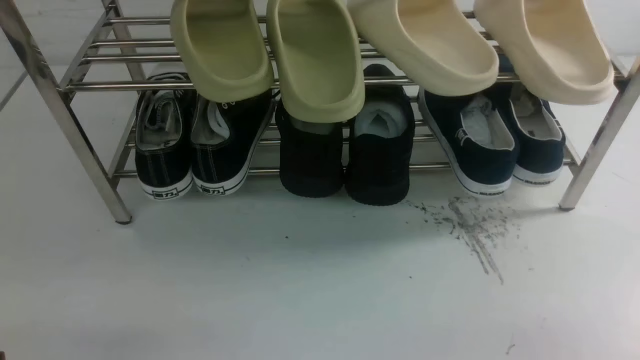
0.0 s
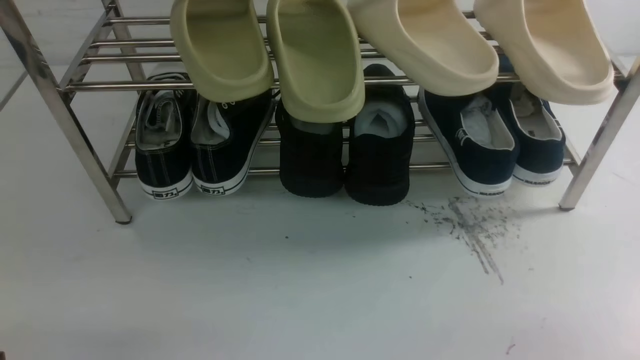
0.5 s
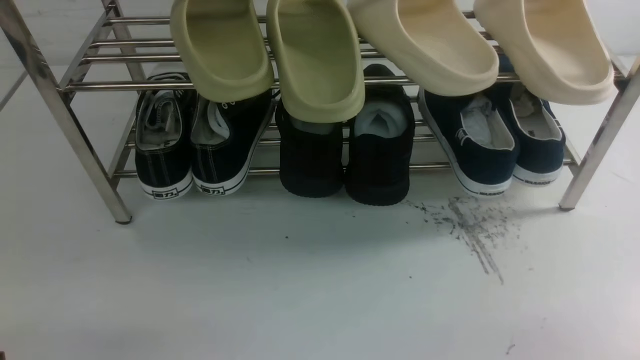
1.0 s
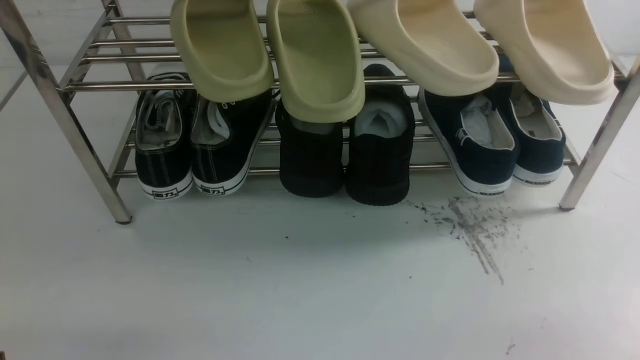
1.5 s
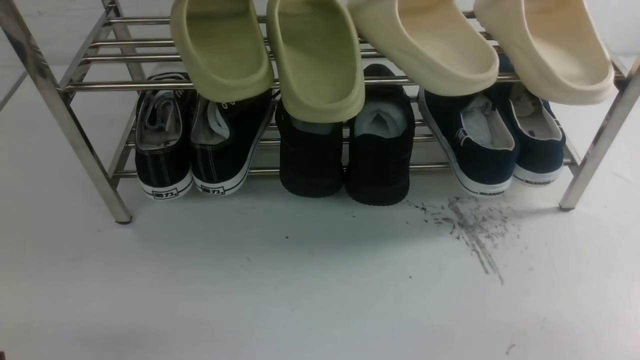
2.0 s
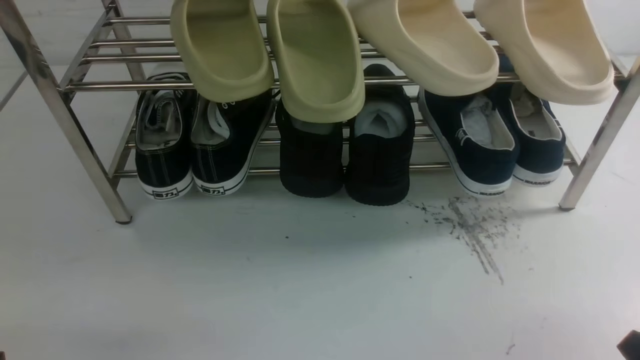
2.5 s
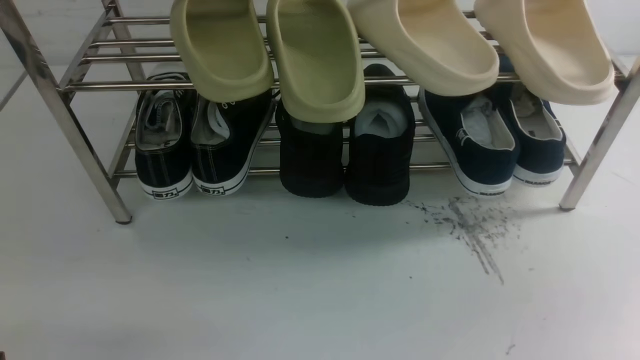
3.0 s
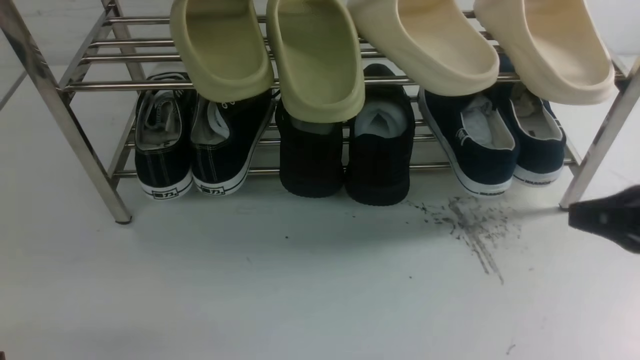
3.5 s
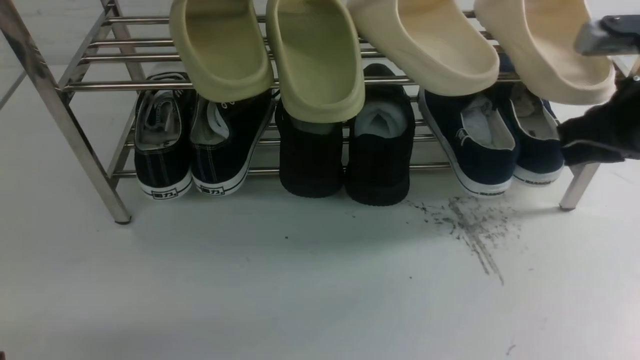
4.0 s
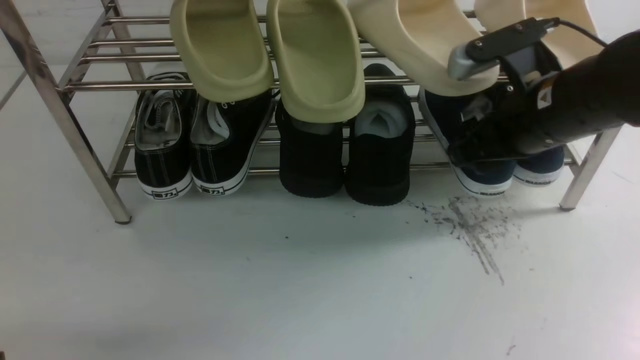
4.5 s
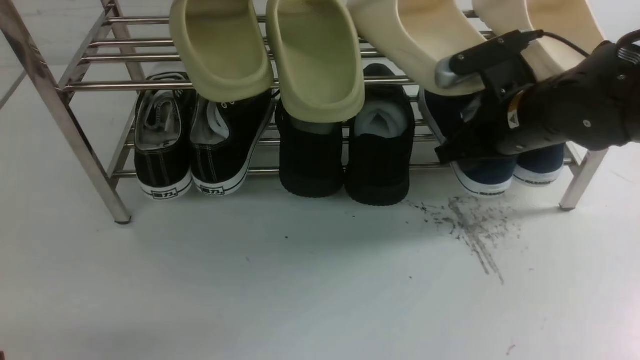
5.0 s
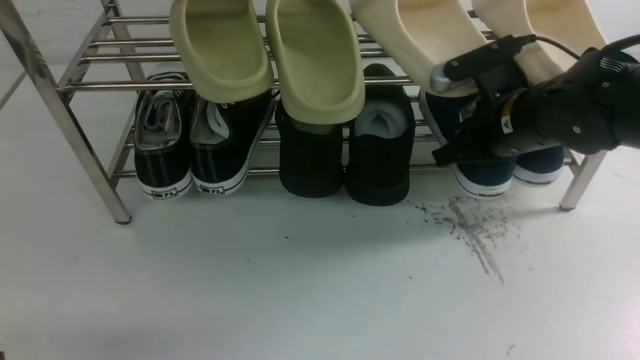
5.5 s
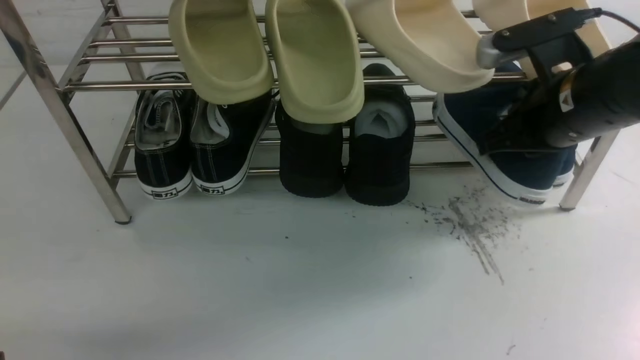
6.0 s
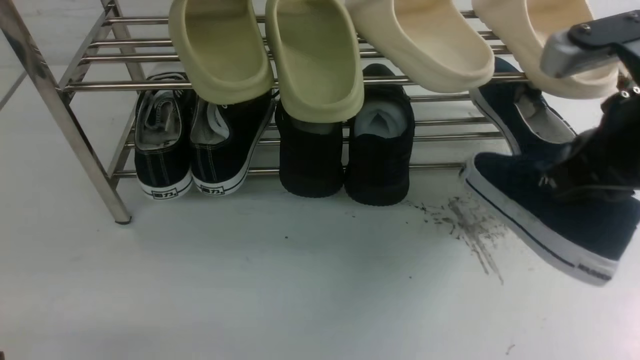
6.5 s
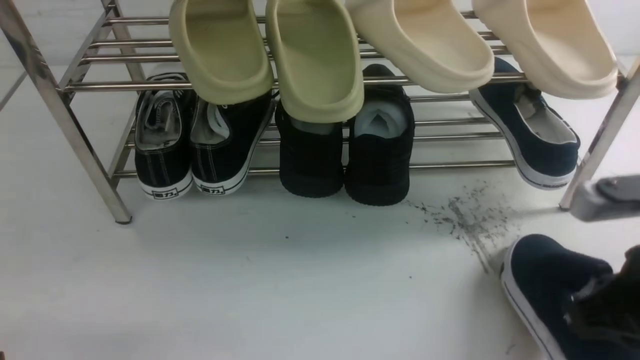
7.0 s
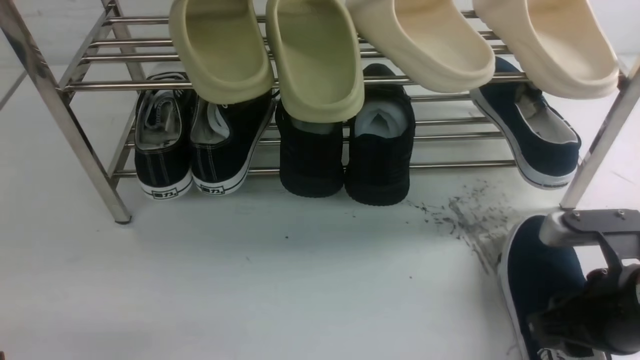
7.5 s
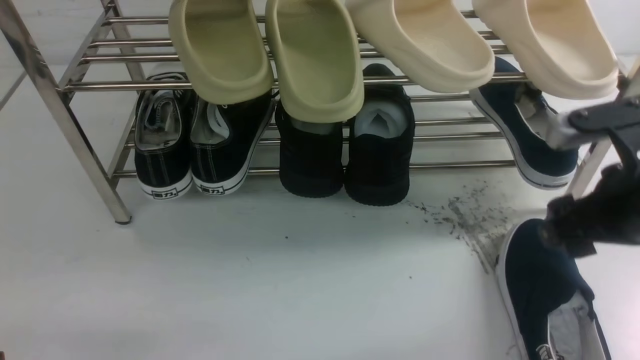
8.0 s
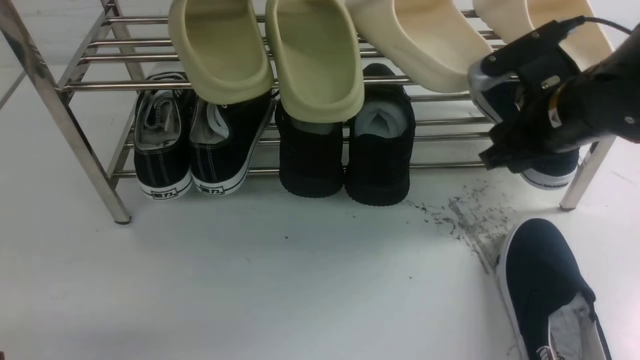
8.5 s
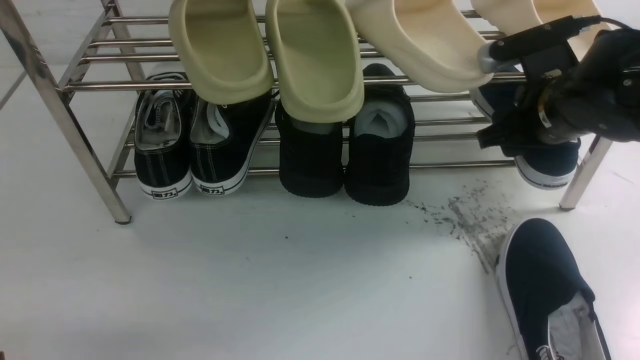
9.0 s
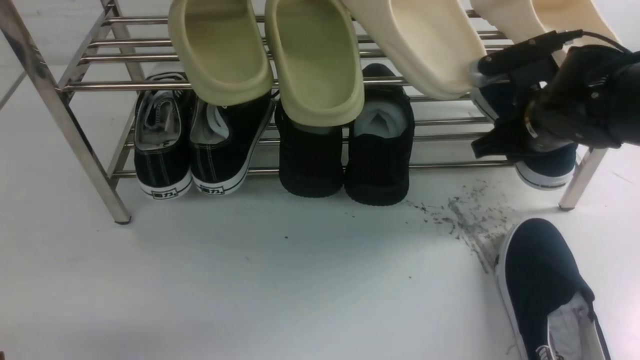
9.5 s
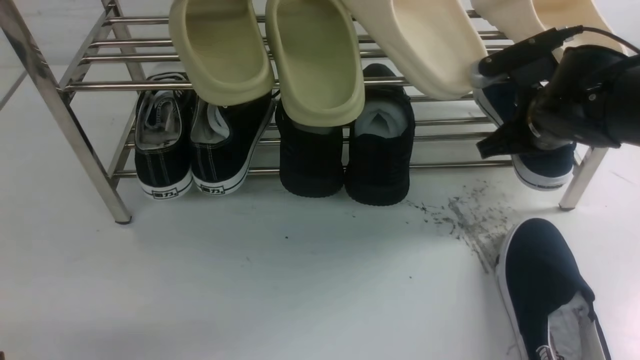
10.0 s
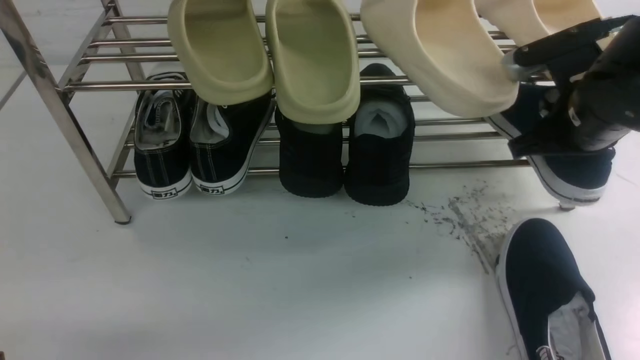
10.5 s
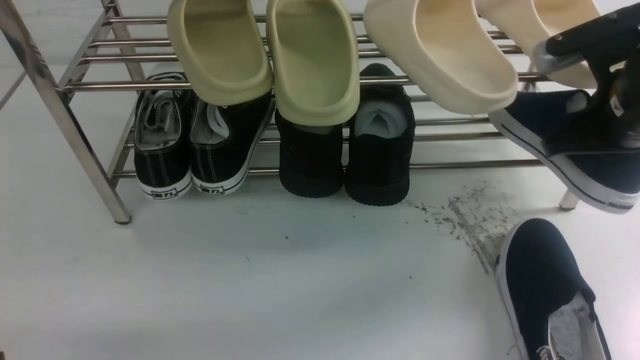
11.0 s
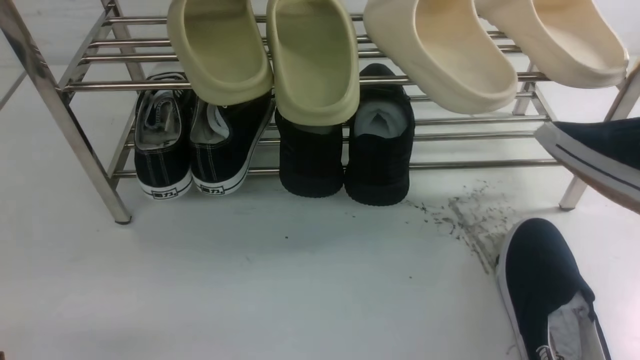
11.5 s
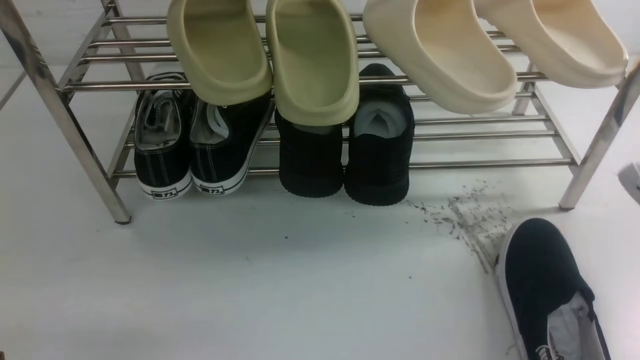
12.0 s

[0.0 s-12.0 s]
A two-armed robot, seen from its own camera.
Step, 0.0 to 6.0 s: use the right arm to clamp a shoe on the right side of the shoe rack.
Step, 6.5 to 8.0 s: use the right arm to take out the clamped shoe from the shoe rack and put it down.
Step, 8.5 to 11.0 s: use the right arm to clamp a shoe on the right side of the shoe rack.
0.0 to 2.0 s: Both grippers stay about where they are.
2.0 to 4.0 s: The right gripper moves forward and upward, some 30 cm.
4.0 to 6.0 s: The right gripper moves to the left, roughly 5 cm, and opens, then closes once more.
6.0 to 8.0 s: The right gripper moves up and down over some 15 cm, changing direction 2 times, and opens.
8.0 to 10.0 s: The right gripper goes approximately 10 cm forward, and closes its fingers.
10.0 to 12.0 s: The right gripper is displaced backward and upward by about 25 cm.

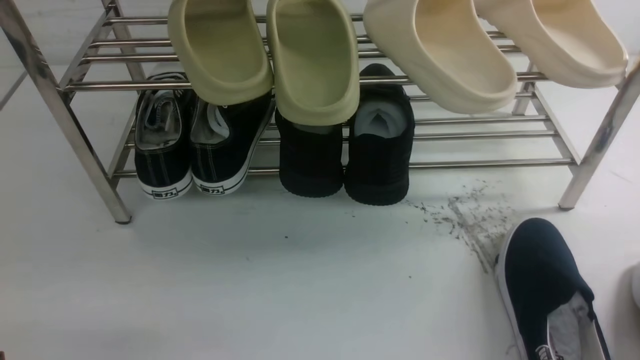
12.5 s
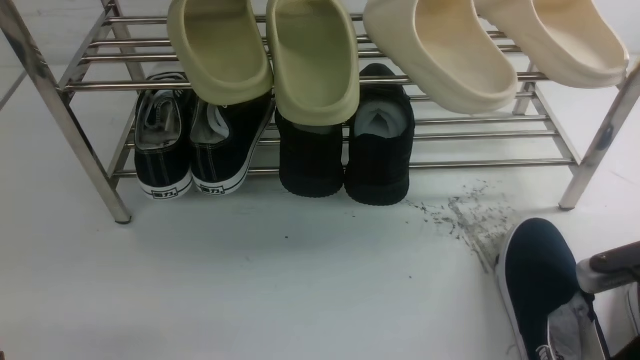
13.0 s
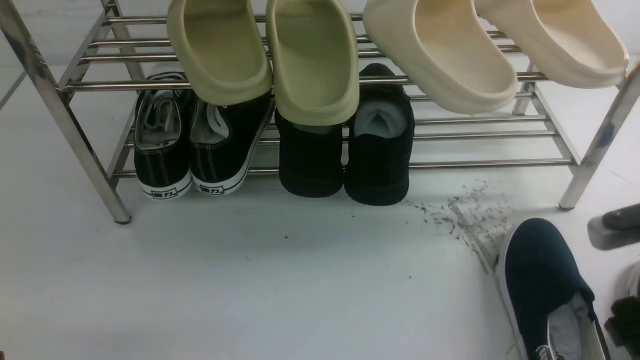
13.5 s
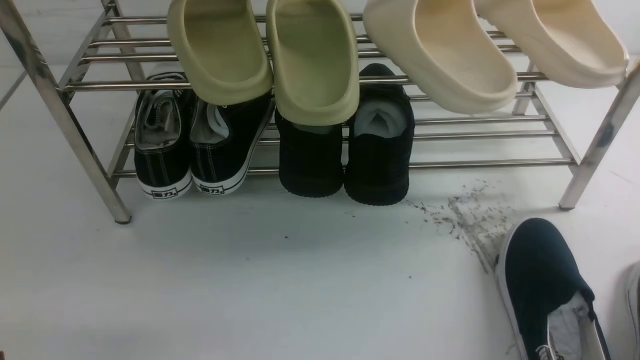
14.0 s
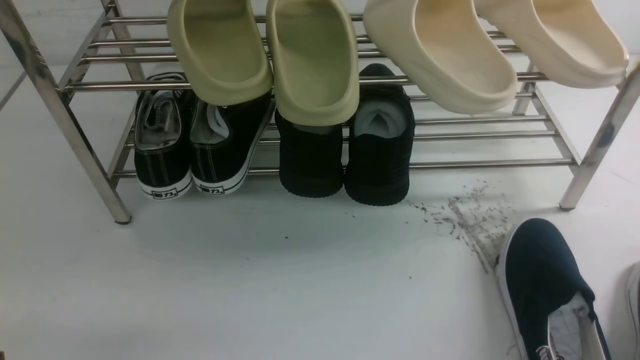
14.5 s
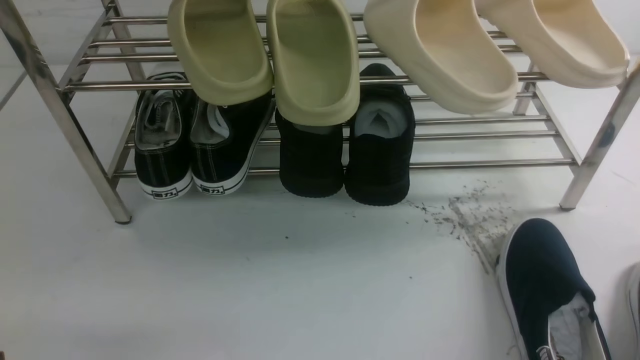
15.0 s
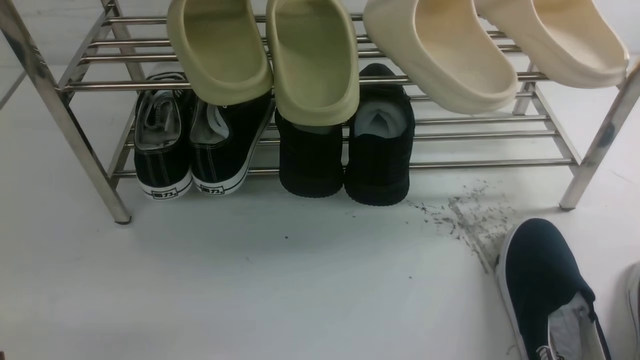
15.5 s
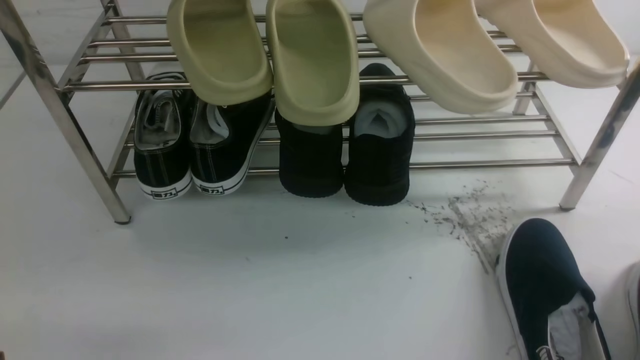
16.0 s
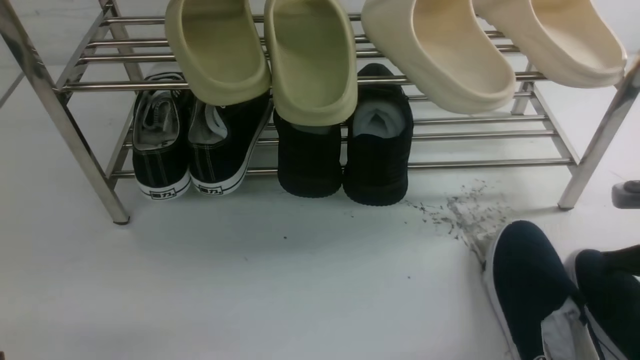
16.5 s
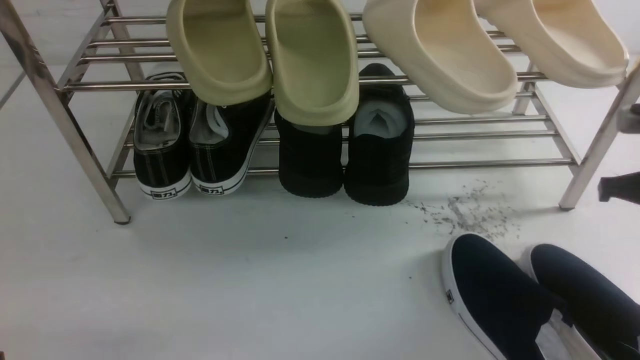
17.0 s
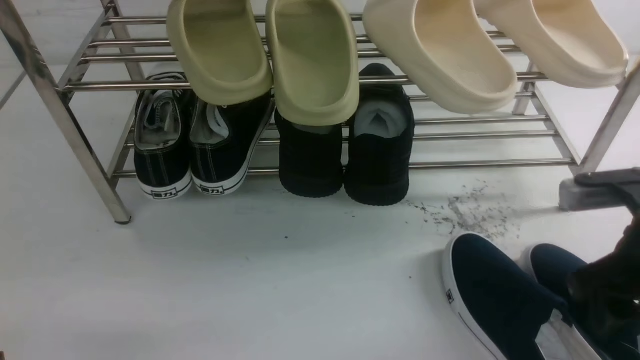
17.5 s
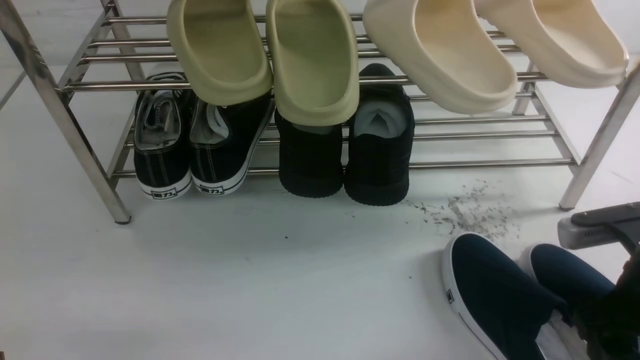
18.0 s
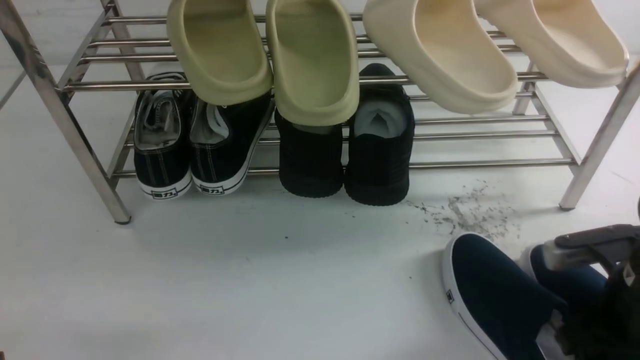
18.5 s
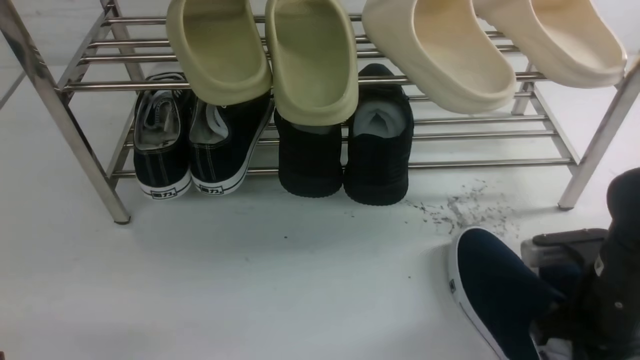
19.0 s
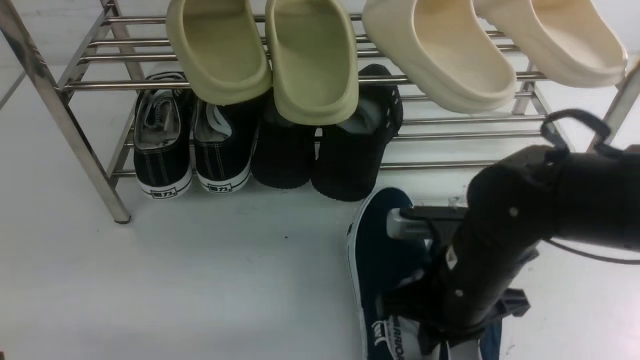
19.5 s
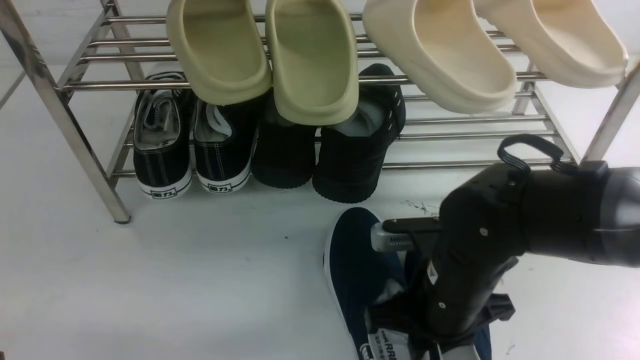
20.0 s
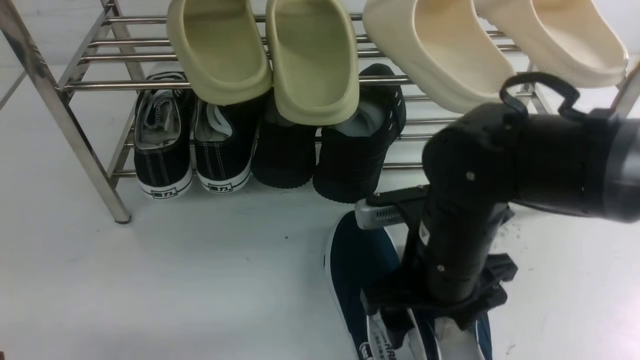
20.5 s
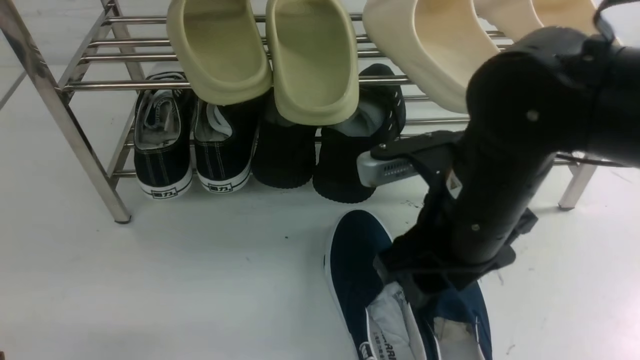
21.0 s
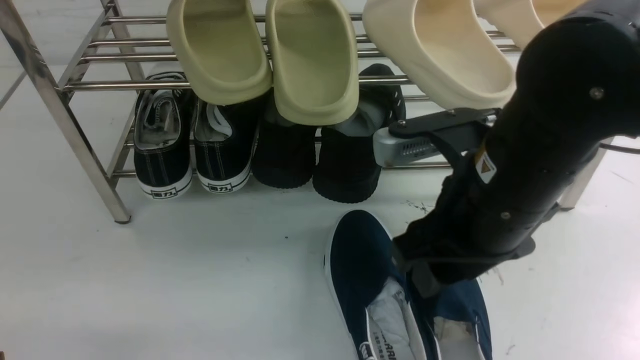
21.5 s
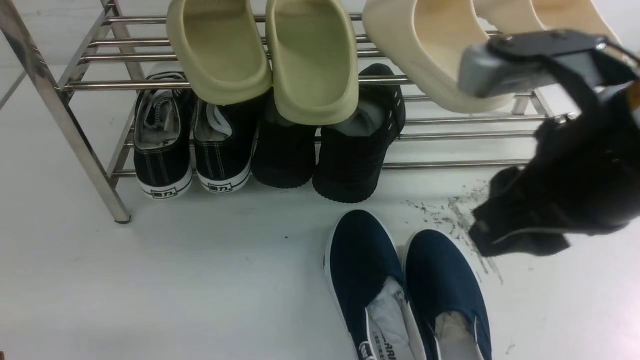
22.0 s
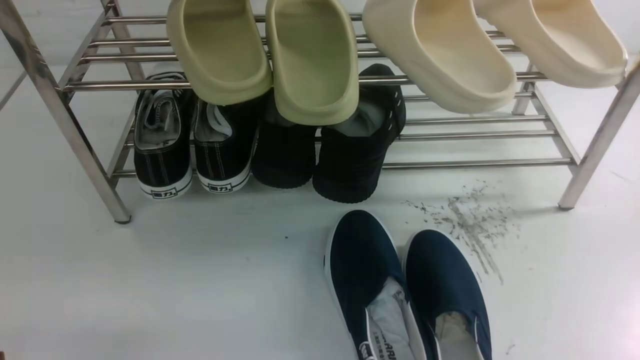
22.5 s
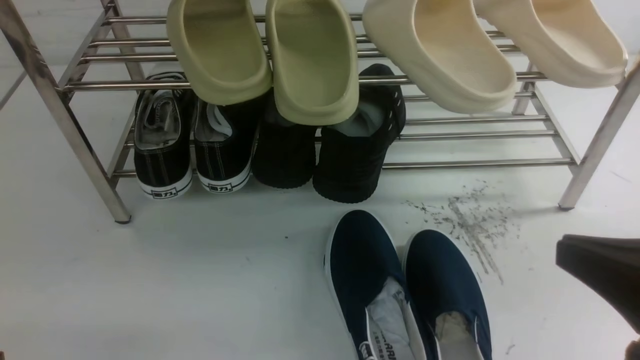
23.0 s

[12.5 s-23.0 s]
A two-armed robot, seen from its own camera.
14.5 to 16.5 s: The right gripper heads downward and forward, covering roughly 25 cm.
16.5 to 19.0 s: The right gripper goes roughly 15 cm to the left and backward, and opens, then closes again.
19.0 to 21.0 s: The right gripper goes some 15 cm to the left and upward, and opens.
21.0 to 23.0 s: The right gripper heads to the right and backward, covering approximately 20 cm, and closes up.
